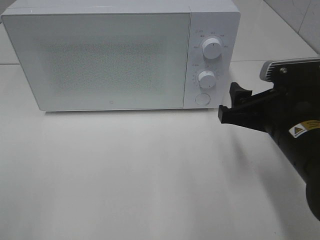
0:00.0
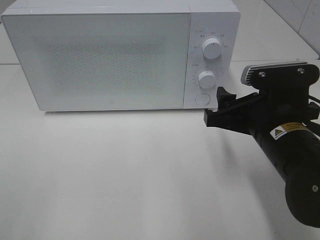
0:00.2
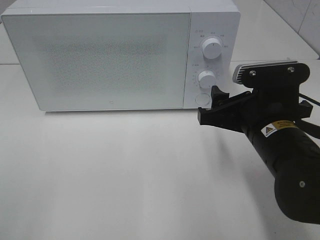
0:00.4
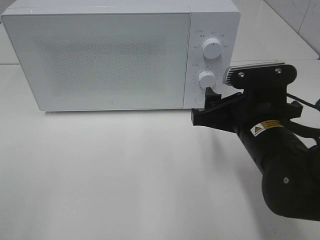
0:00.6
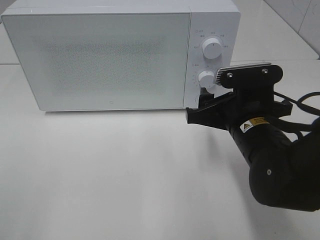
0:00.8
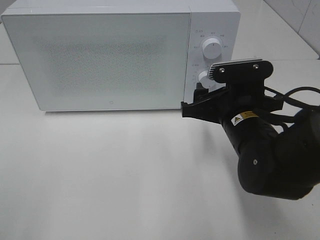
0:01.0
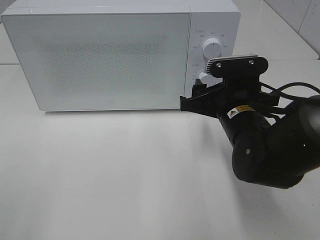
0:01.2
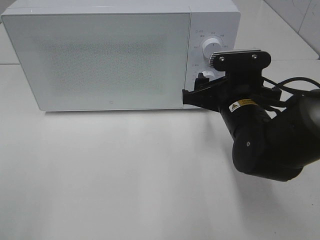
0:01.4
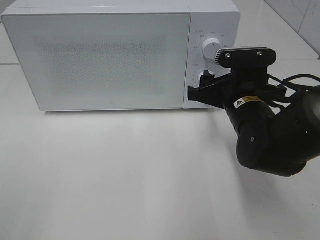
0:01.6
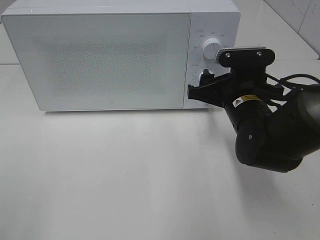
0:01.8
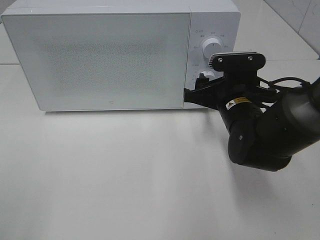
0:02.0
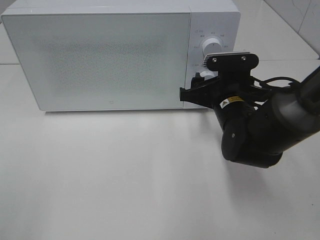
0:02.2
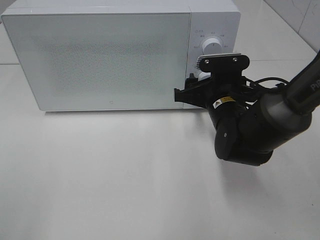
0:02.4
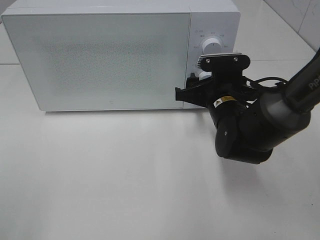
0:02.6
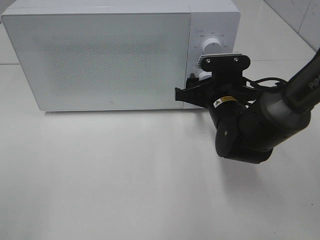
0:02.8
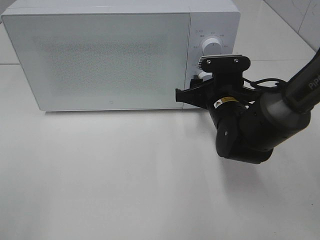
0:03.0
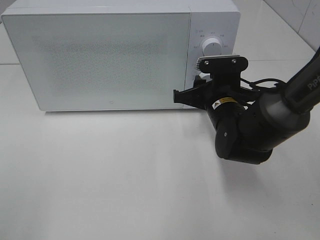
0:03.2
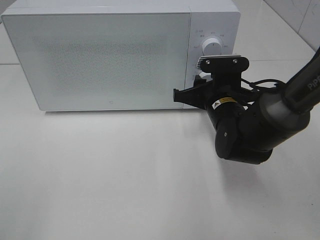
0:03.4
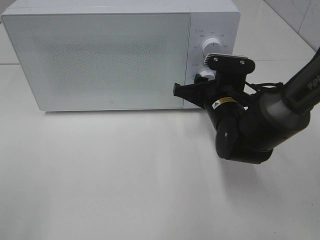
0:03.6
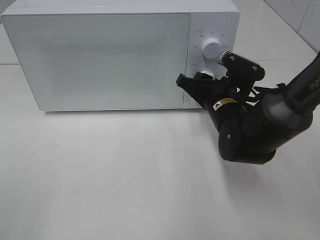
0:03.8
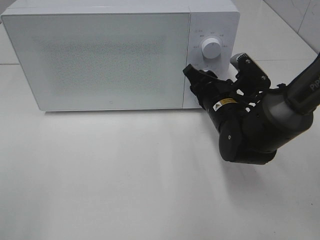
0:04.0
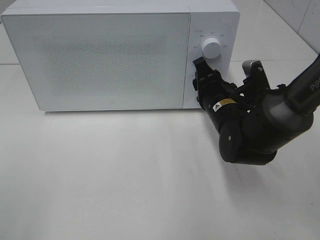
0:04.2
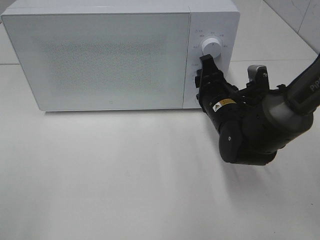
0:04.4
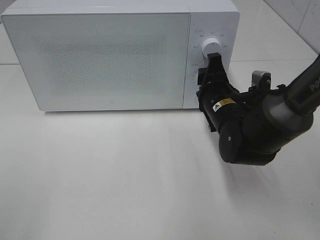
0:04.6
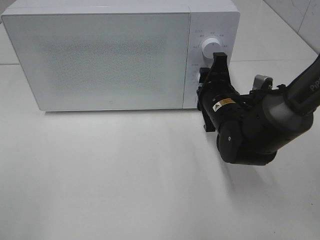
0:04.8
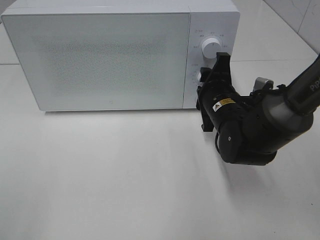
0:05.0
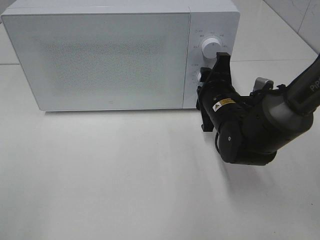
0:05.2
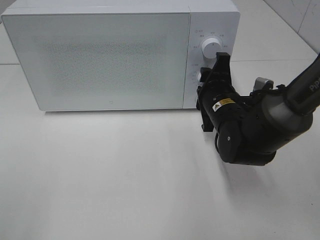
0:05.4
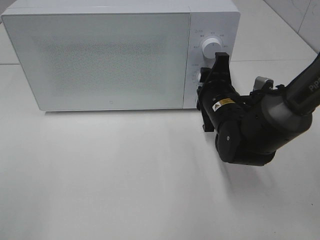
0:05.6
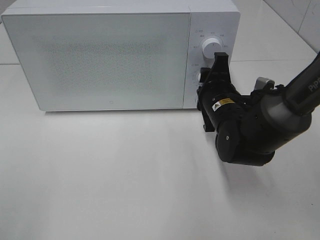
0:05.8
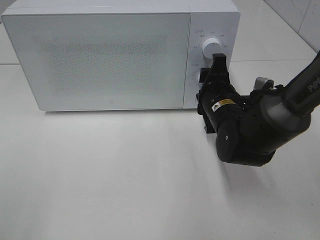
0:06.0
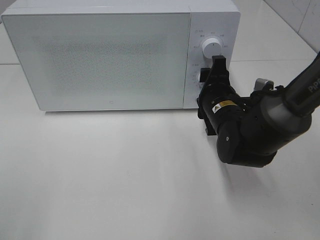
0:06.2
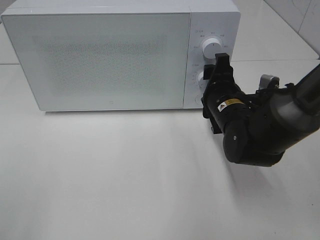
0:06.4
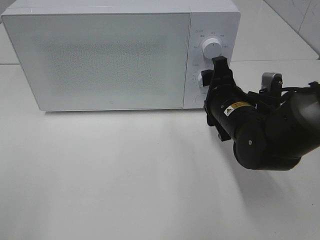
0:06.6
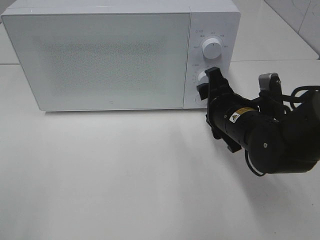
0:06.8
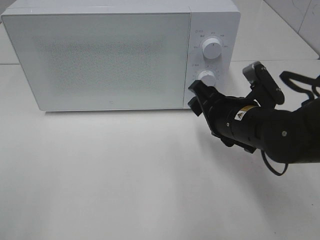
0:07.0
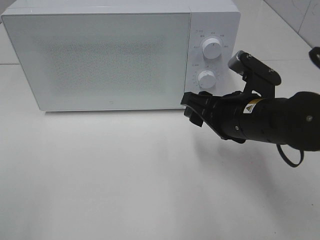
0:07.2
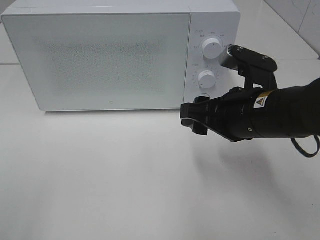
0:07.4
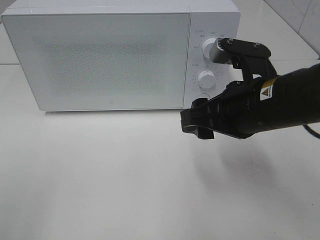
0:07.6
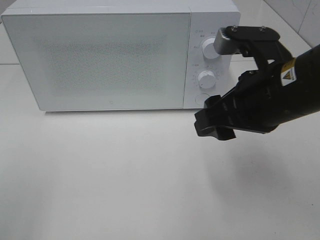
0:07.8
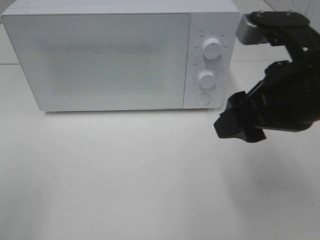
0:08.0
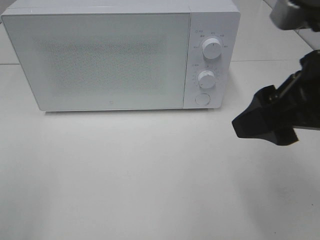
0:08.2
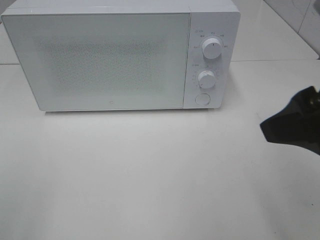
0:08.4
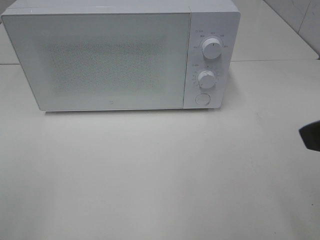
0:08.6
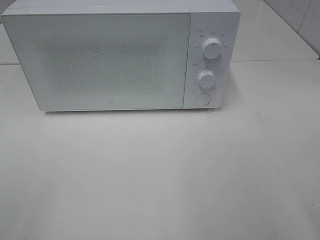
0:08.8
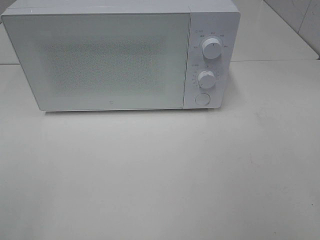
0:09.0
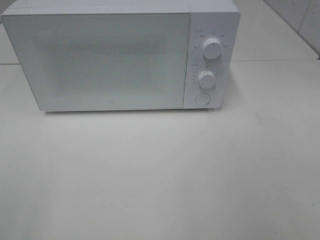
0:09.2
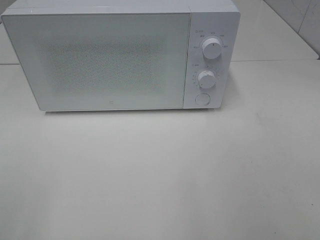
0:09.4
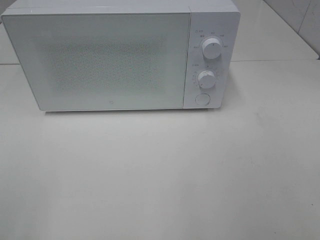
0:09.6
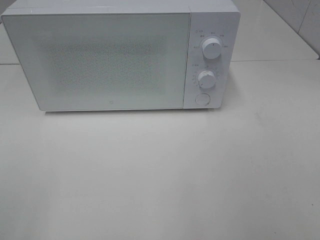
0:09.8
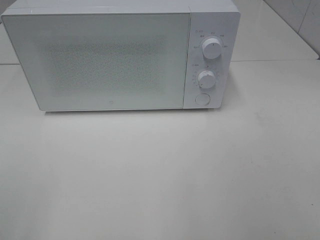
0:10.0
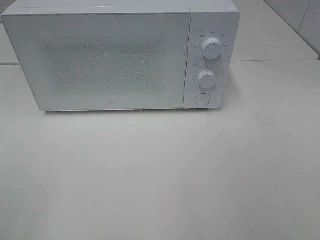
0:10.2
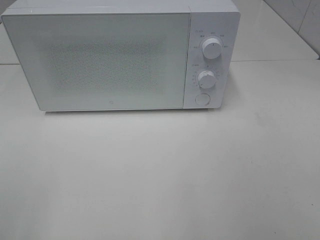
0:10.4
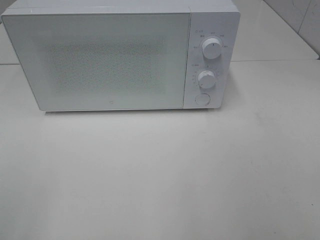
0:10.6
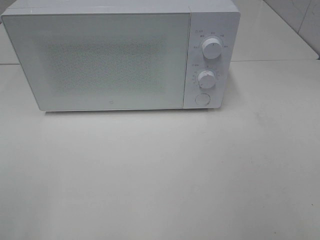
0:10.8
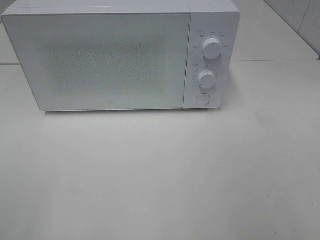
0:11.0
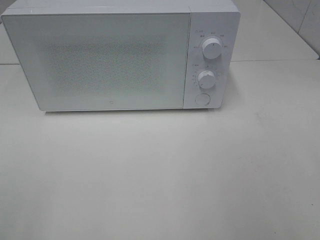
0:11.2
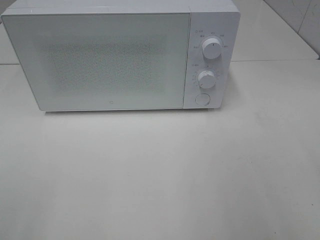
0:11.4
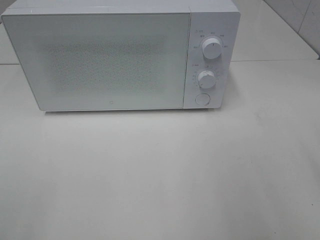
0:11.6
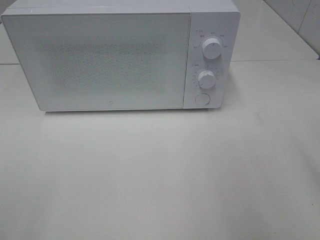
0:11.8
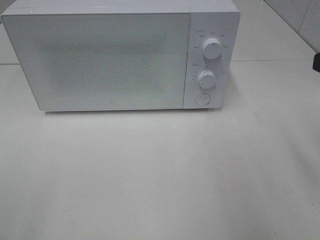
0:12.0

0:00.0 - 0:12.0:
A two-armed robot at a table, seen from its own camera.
Task of the whole recording: Heat the burger.
Step, 0:00.0 - 0:06.2: Right hand: twist timer button.
0:00.0 - 0:01.6: The right gripper moves forward, roughly 10 cm.
0:01.6 - 0:03.0: The right gripper ends up approximately 5 cm from where it was.
0:06.0 - 0:07.6: The right gripper travels upward and backward by some 15 cm.
0:07.6 - 0:09.0: The right gripper heads backward, to the right and upward, covering approximately 25 cm.

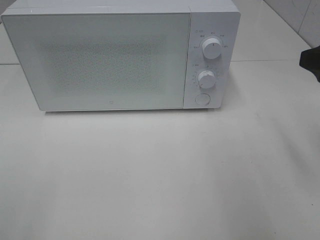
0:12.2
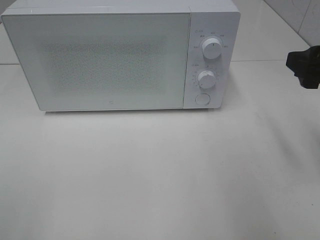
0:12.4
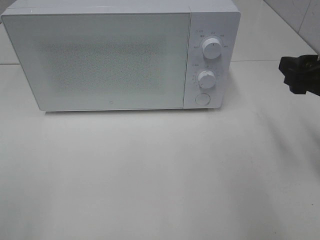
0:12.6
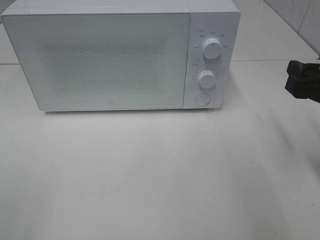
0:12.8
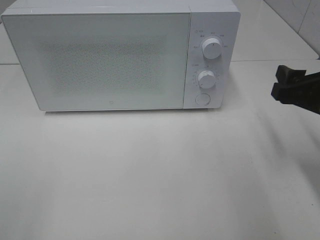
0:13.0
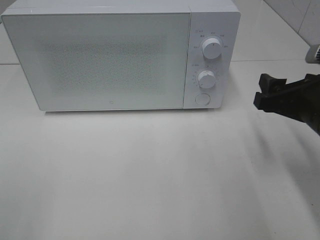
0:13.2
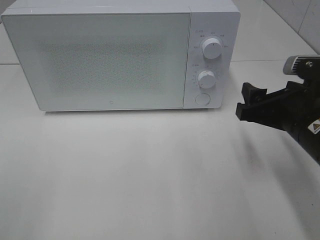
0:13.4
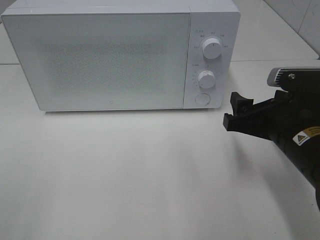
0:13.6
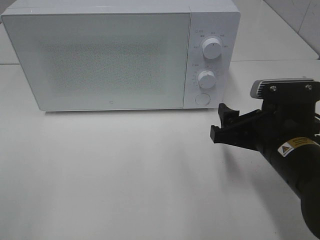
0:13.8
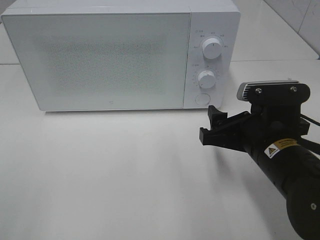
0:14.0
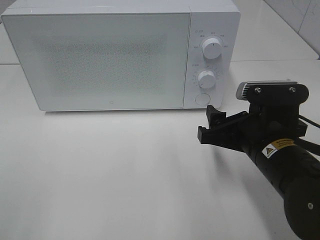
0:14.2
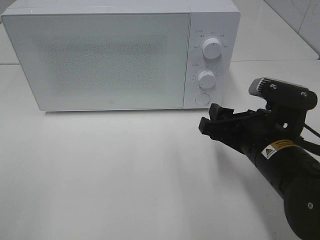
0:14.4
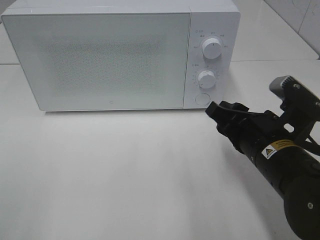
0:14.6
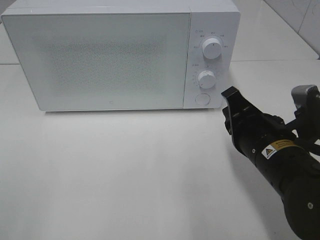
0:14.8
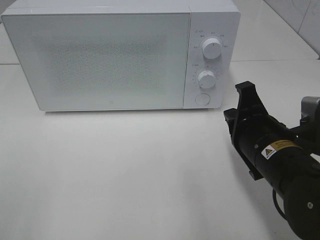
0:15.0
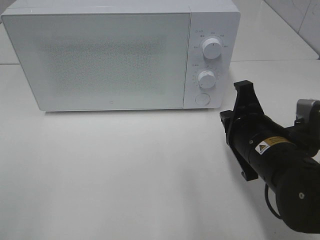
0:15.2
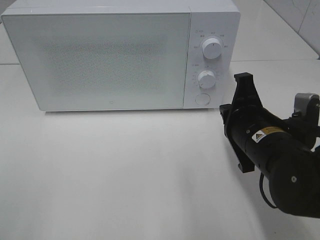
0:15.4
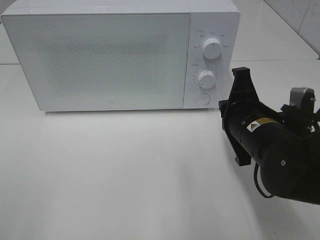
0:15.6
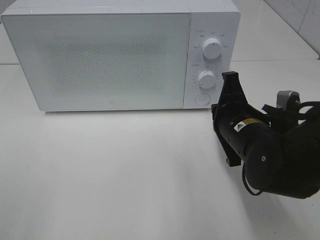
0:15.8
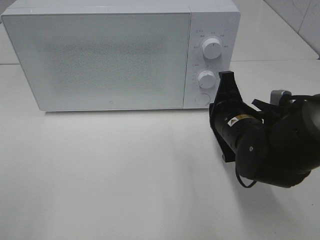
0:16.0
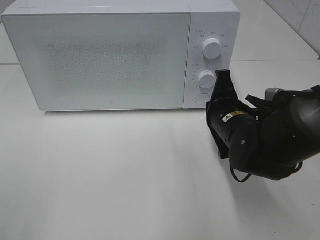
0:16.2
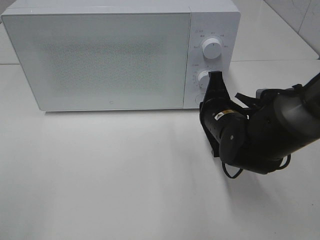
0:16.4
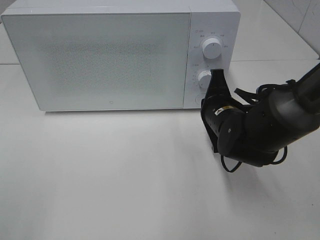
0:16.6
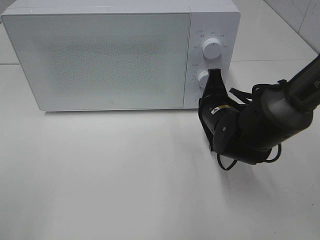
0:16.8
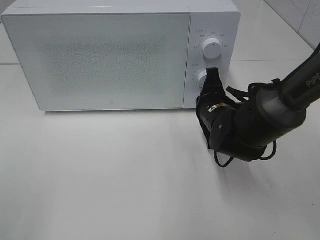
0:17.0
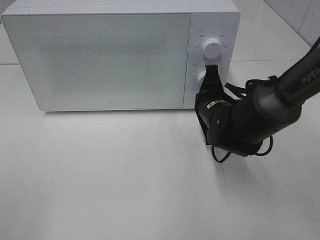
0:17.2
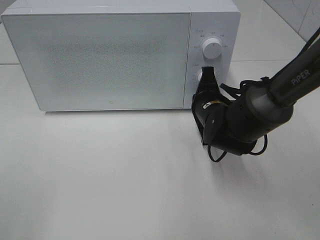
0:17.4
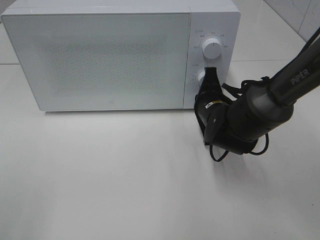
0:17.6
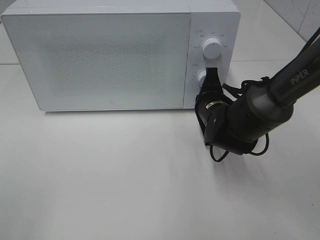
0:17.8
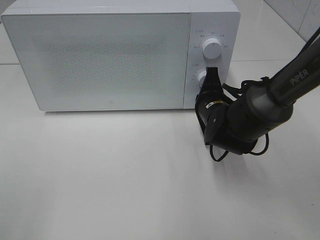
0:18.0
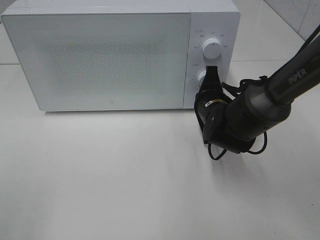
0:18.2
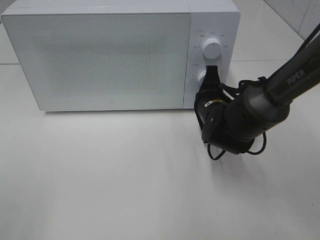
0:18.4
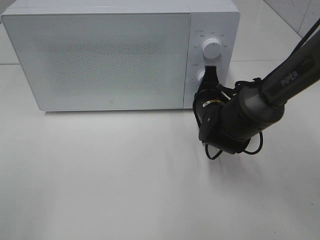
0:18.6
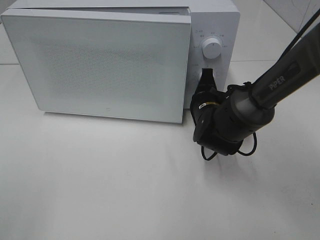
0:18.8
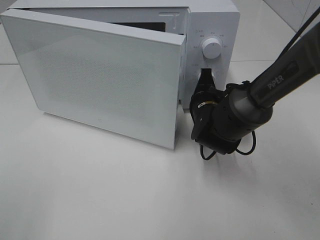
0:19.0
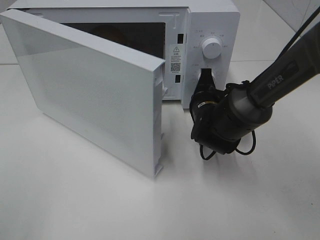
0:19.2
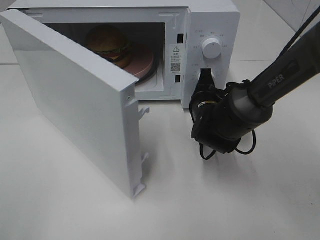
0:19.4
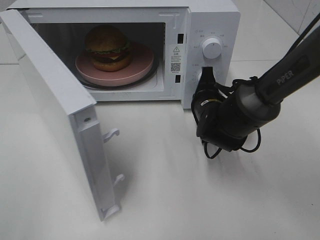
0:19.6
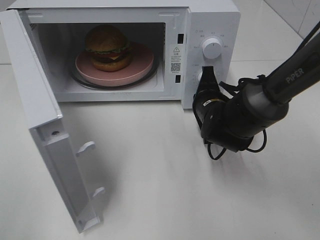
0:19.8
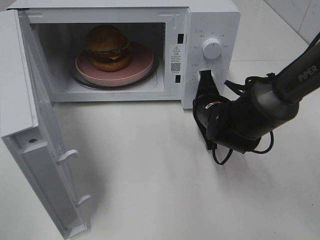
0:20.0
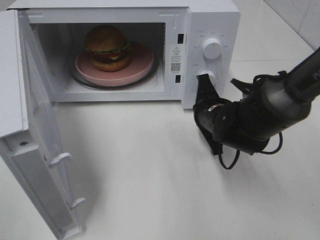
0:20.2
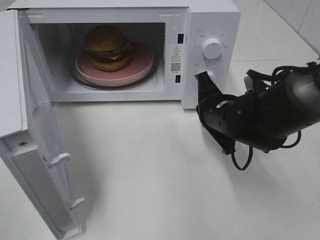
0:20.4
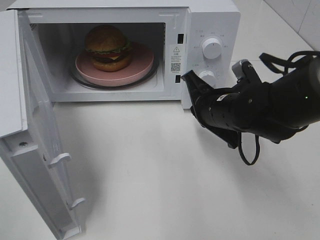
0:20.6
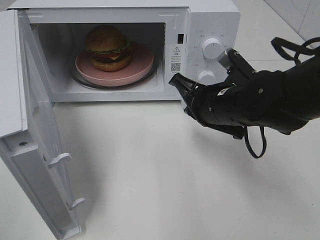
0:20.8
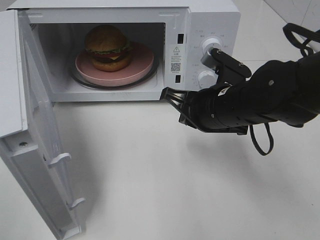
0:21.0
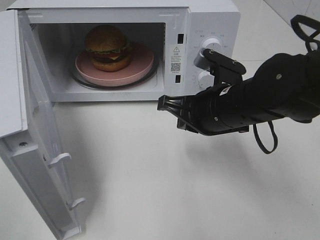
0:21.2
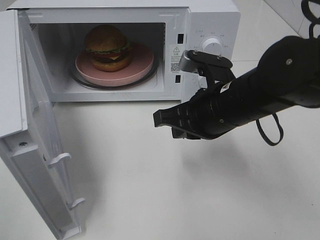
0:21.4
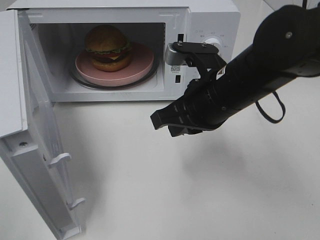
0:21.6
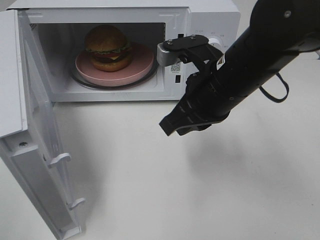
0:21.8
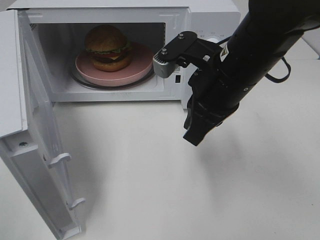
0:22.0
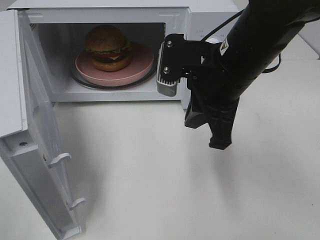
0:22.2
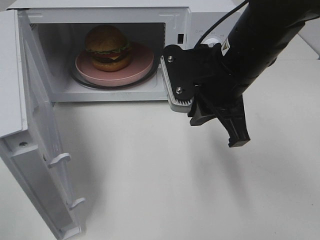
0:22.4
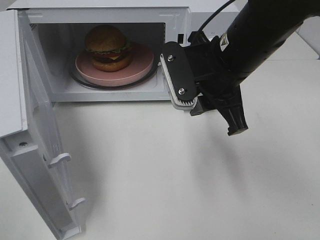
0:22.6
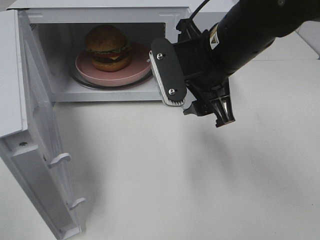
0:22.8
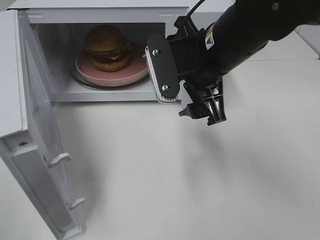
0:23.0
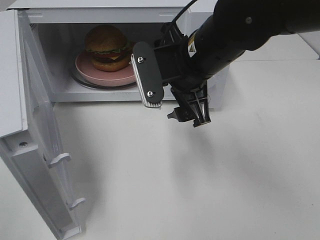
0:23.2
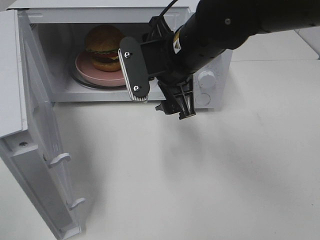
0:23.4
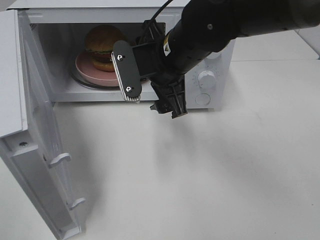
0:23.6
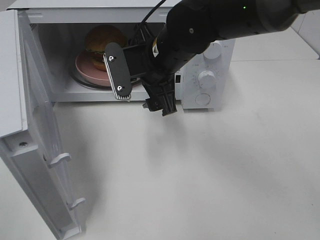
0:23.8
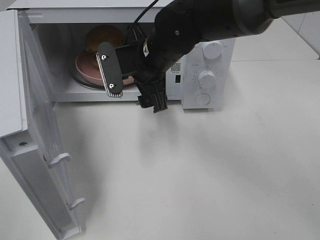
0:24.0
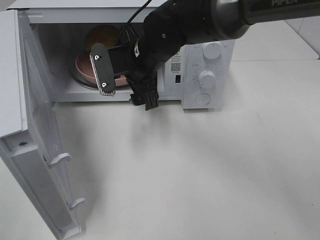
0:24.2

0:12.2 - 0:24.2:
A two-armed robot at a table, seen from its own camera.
Task of the whole recording: Heat the burger.
Step, 0:12.2 - 0:19.8: Right hand: press the switch.
0:12.2 - 0:13.8: The right gripper is displaced downward and to the left by approximately 15 cm.
0:13.8 - 0:15.2: The right gripper closes up.
0:15.2 - 0:16.6: The right gripper travels forward by roughly 10 cm.
0:16.6 - 0:18.2: The grippers stay close to where they were, moving slightly.
0:19.8 - 0:21.2: The right gripper is displaced upward and backward by roughly 10 cm.
0:21.2 - 0:22.6: The right gripper shifts about 10 cm upward, and opens up.
0:22.6 - 0:24.2: The right gripper travels to the left, forward and downward by approximately 15 cm, and opens up.
